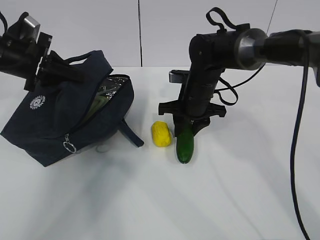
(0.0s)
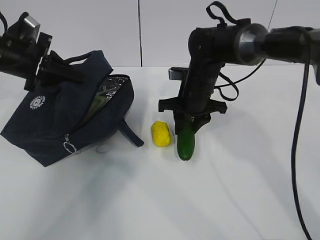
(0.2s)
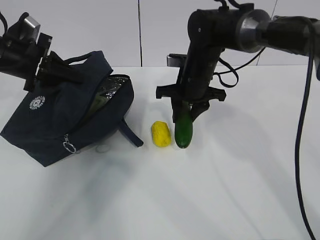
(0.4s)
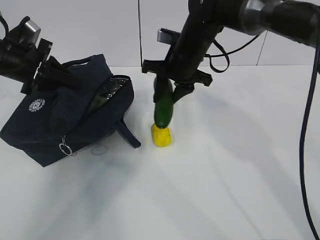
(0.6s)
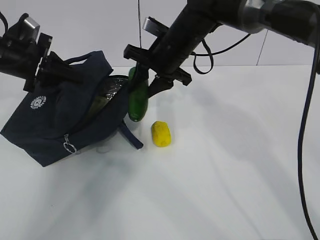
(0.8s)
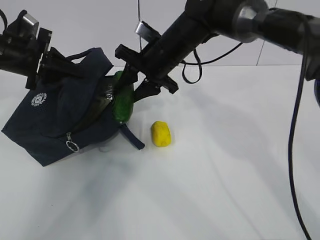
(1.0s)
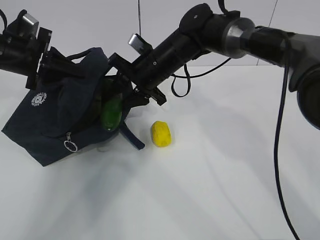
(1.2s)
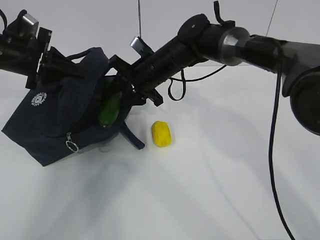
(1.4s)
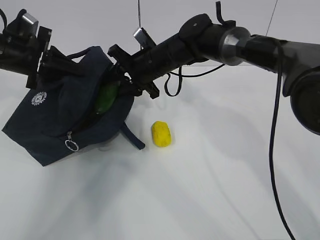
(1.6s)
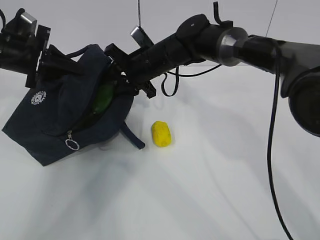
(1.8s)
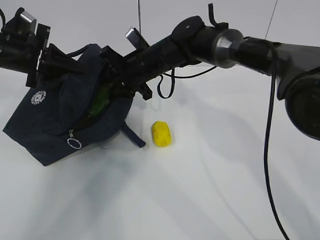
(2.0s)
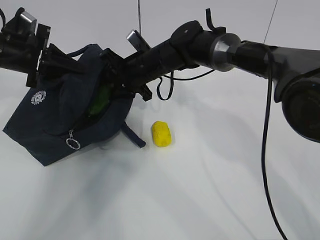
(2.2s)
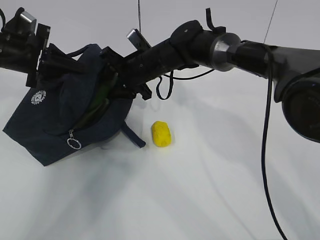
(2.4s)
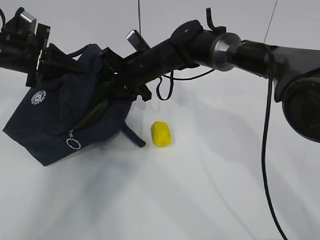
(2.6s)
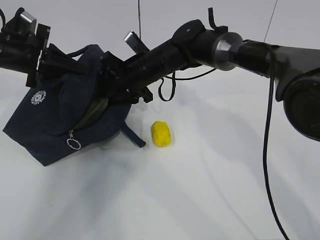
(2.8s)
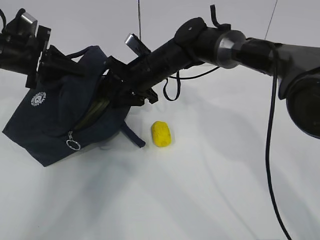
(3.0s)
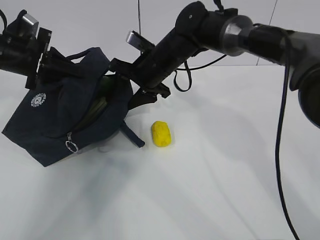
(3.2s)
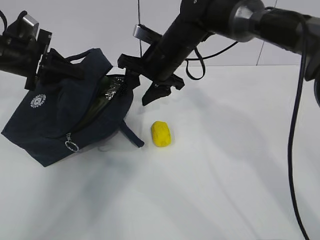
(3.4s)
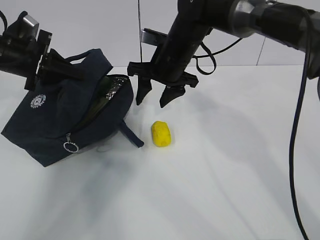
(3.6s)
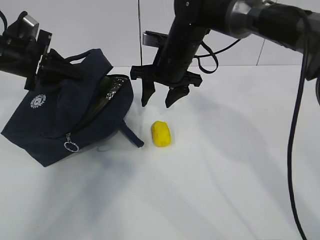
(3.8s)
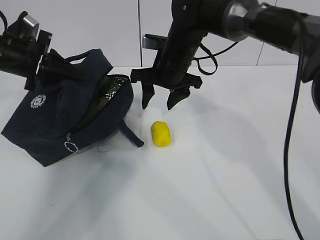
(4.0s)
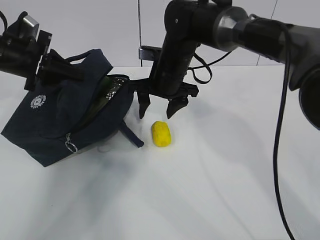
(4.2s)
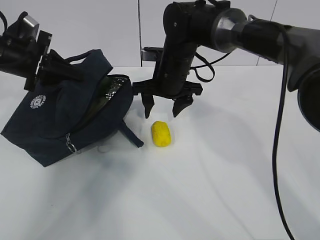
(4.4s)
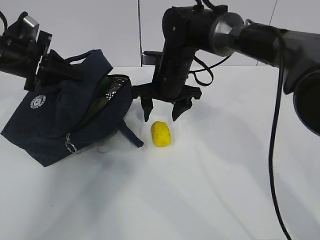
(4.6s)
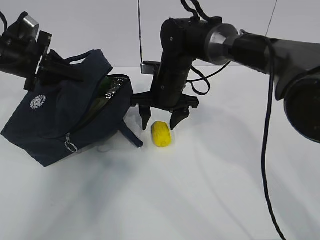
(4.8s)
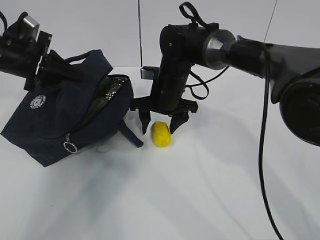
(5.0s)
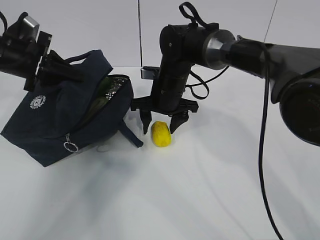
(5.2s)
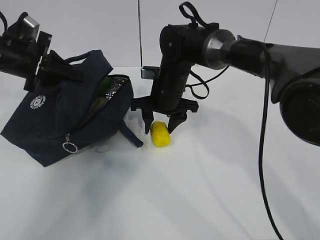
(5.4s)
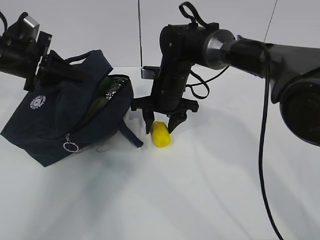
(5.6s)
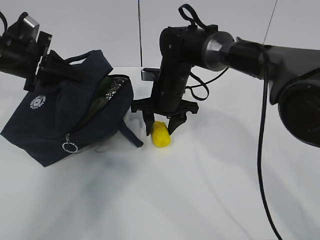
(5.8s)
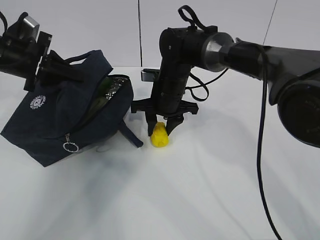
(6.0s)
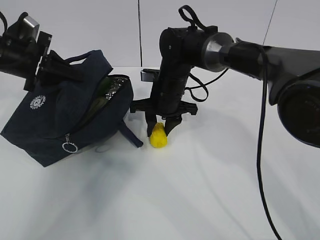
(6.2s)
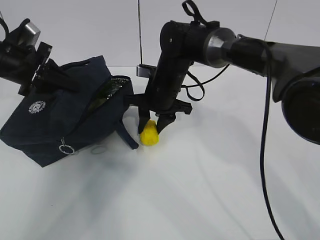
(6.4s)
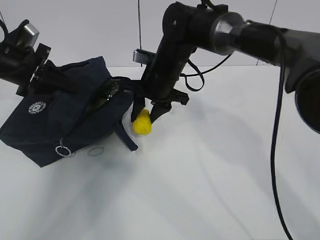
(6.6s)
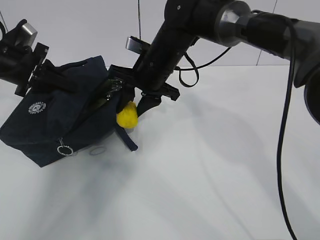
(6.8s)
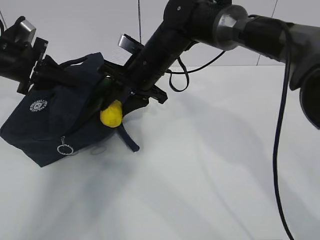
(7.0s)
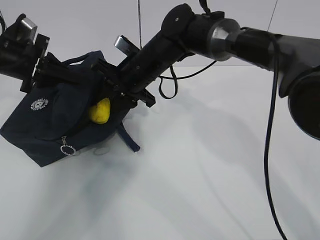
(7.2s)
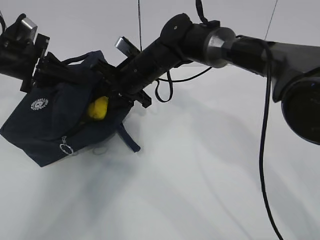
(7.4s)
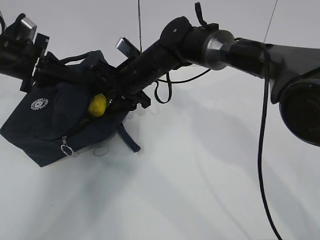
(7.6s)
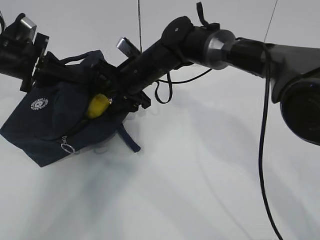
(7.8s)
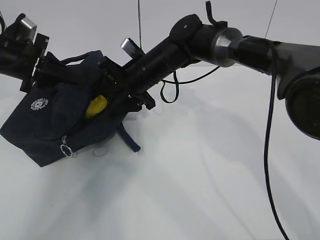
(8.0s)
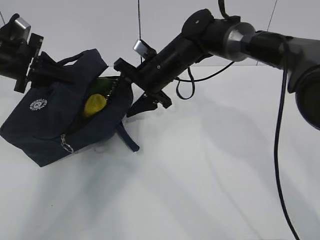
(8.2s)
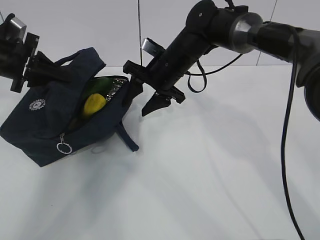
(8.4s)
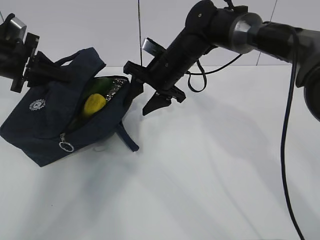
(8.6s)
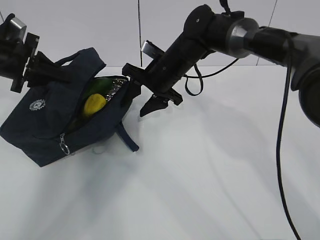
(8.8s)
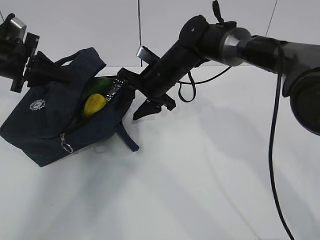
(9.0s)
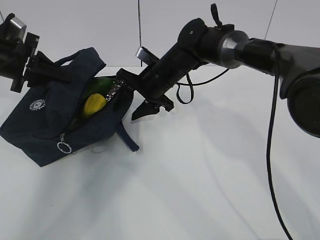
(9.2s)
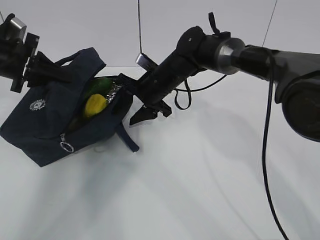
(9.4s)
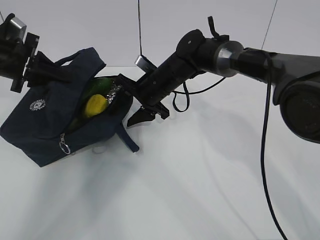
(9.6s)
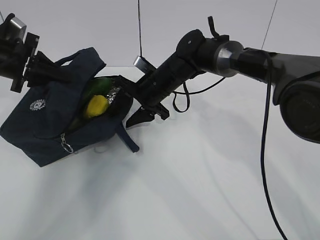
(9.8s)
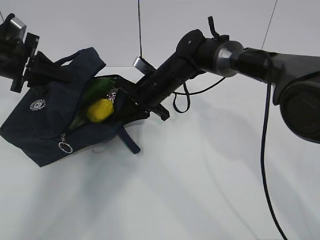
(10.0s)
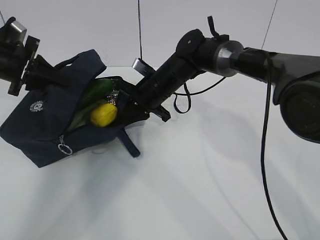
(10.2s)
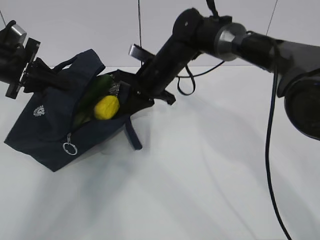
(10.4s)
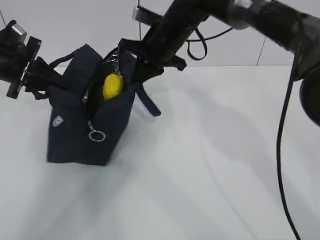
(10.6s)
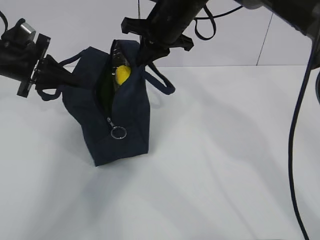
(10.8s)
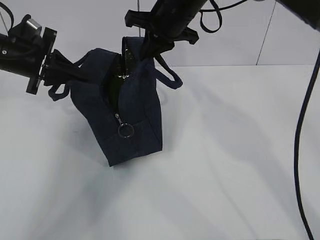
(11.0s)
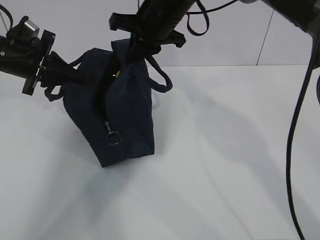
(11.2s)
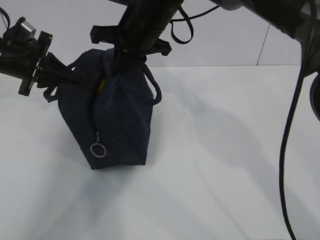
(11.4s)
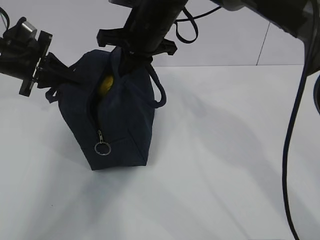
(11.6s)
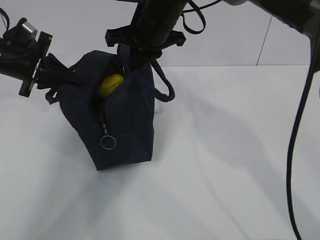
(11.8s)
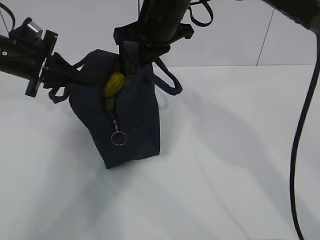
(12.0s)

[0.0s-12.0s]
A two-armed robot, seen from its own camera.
Step, 2.8s to 4.2s: Grab the lunch bag with your right hand.
Step, 4.4s to 8.8s: Stand the lunch bag upright with your right hand.
0.0s to 1.6s: The right gripper travels to the left and upward by roughly 10 cm.
1.6s to 3.0s: There are only small adjustments of the grippers.
4.4s to 6.0s: The right gripper closes.
6.0s to 7.6s: The right gripper is displaced to the left by approximately 5 cm.
7.6s to 9.0s: There are only small adjustments of the grippers.
9.0s to 10.4s: The right gripper closes up.
10.4s to 12.0s: The right gripper goes about 15 cm upward.

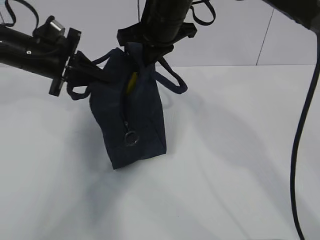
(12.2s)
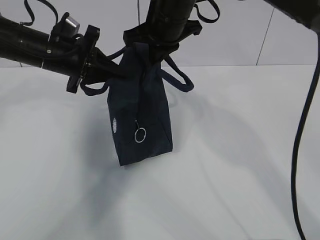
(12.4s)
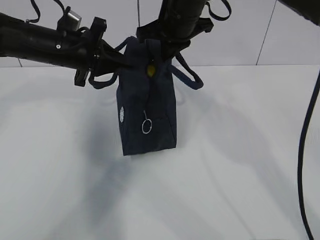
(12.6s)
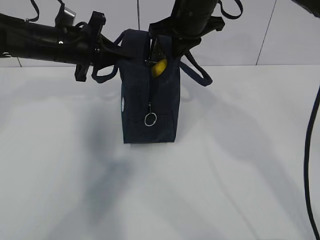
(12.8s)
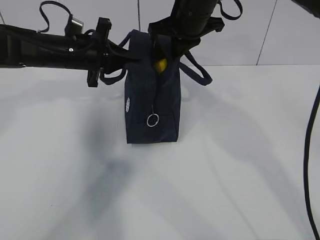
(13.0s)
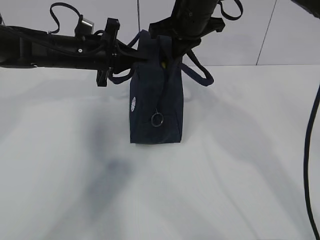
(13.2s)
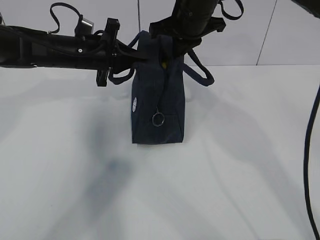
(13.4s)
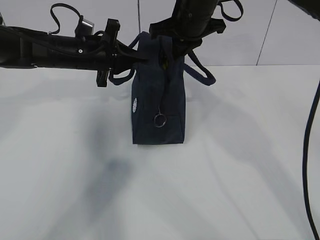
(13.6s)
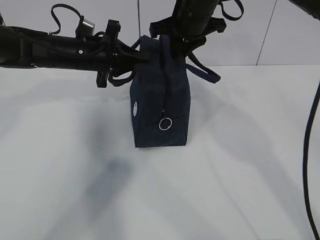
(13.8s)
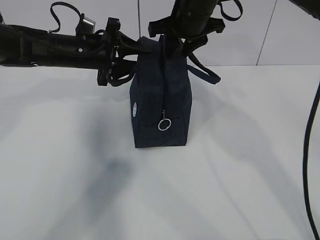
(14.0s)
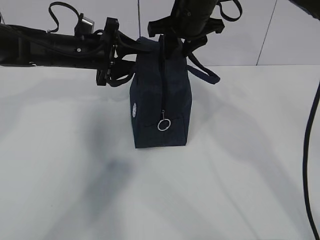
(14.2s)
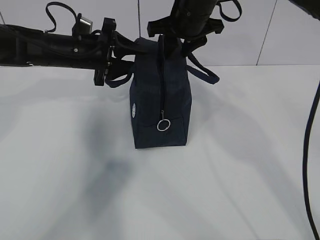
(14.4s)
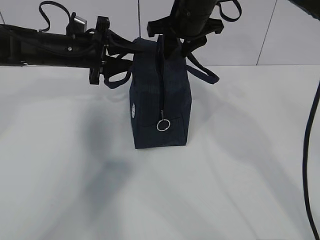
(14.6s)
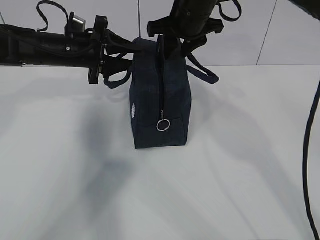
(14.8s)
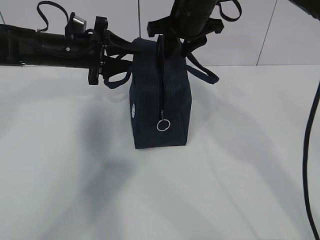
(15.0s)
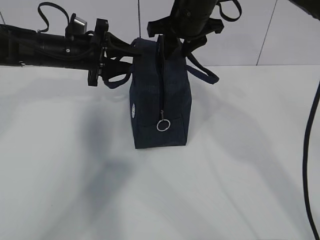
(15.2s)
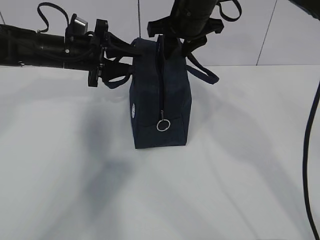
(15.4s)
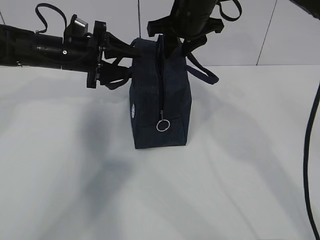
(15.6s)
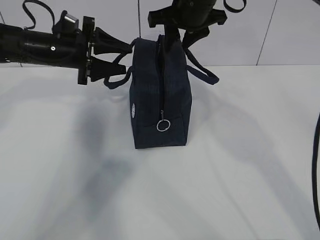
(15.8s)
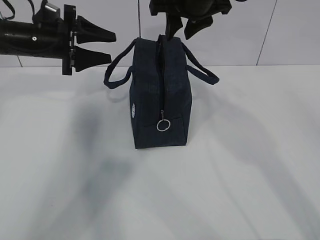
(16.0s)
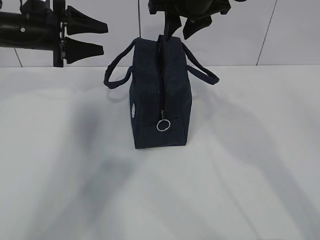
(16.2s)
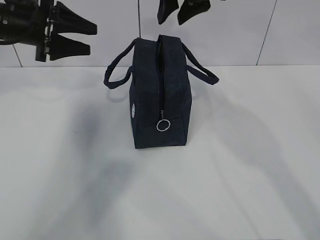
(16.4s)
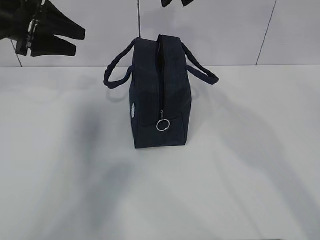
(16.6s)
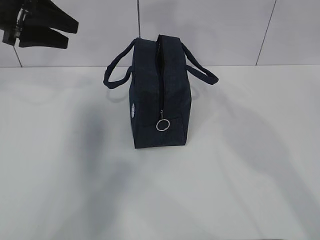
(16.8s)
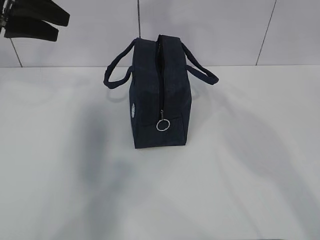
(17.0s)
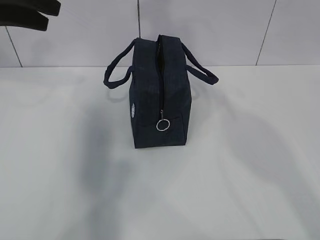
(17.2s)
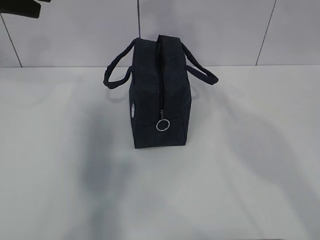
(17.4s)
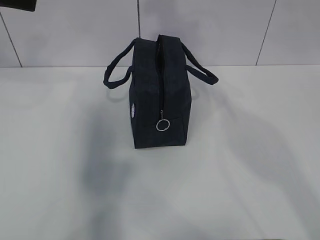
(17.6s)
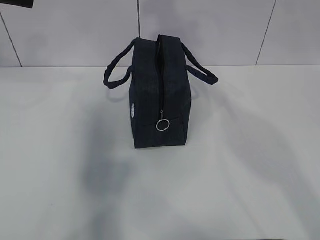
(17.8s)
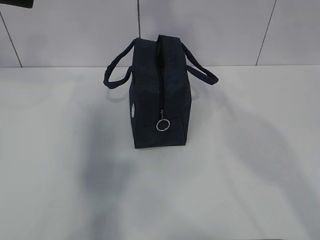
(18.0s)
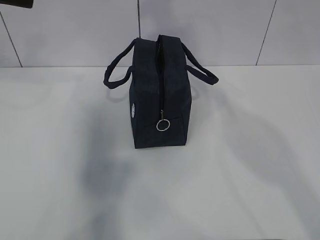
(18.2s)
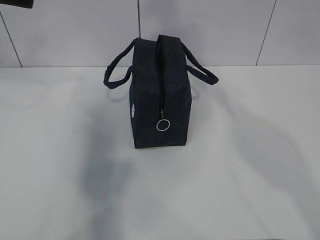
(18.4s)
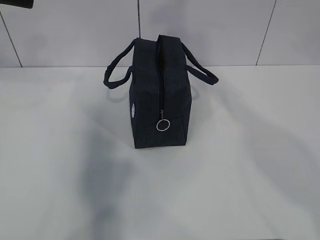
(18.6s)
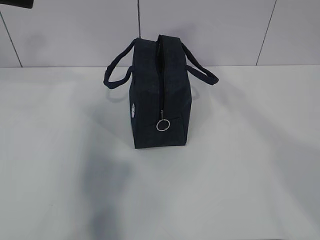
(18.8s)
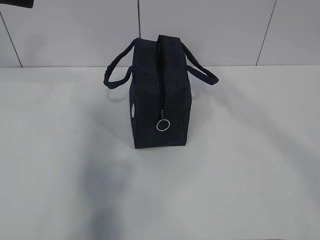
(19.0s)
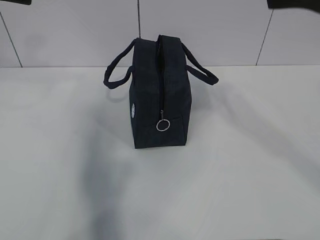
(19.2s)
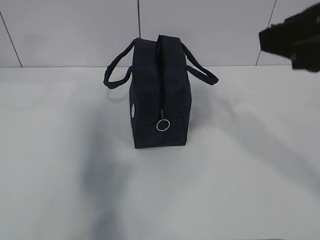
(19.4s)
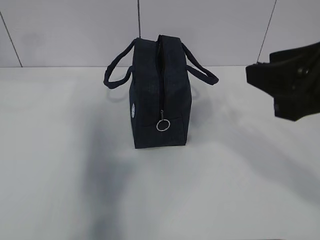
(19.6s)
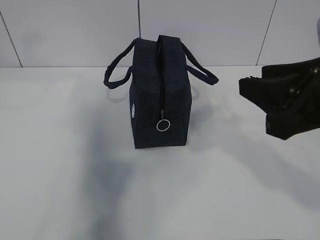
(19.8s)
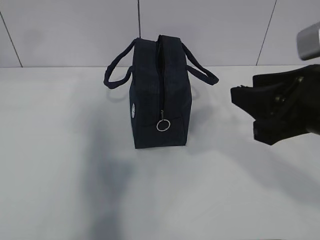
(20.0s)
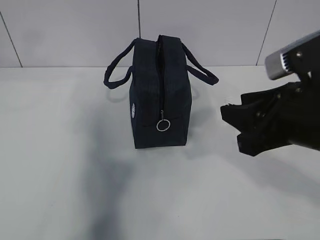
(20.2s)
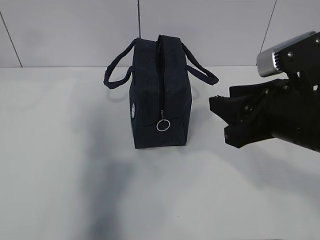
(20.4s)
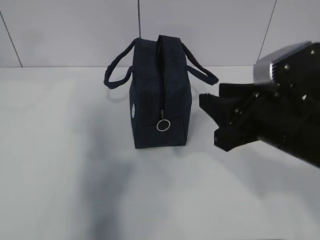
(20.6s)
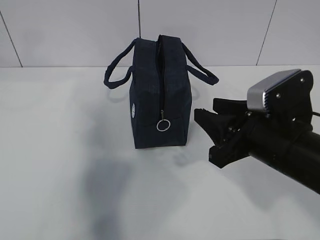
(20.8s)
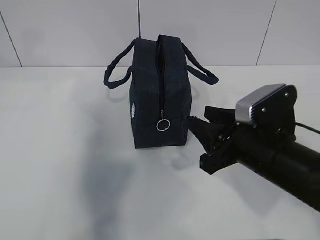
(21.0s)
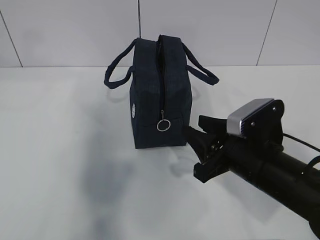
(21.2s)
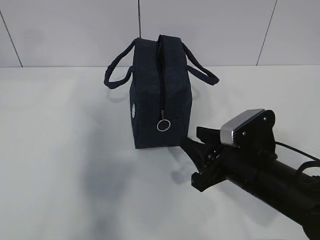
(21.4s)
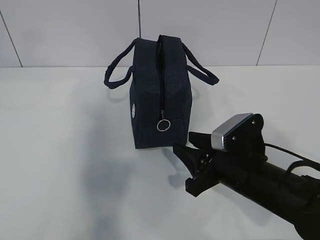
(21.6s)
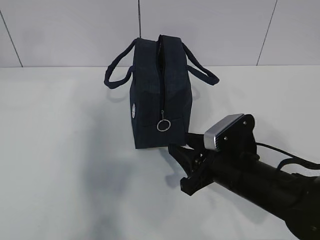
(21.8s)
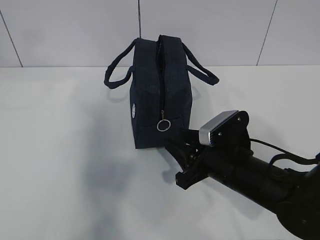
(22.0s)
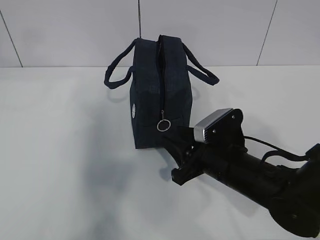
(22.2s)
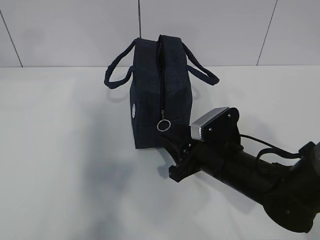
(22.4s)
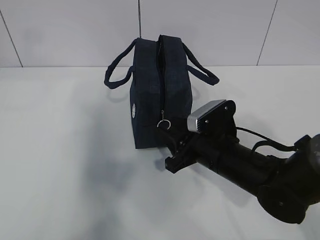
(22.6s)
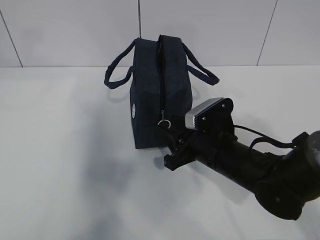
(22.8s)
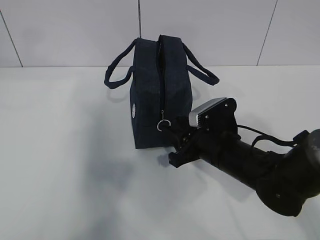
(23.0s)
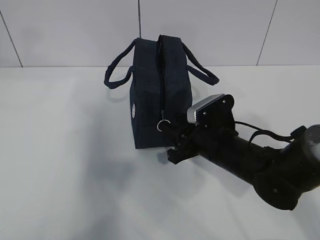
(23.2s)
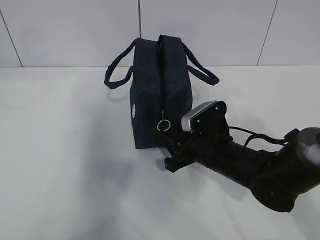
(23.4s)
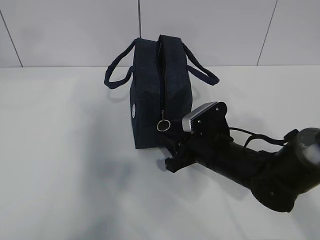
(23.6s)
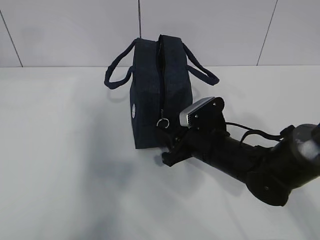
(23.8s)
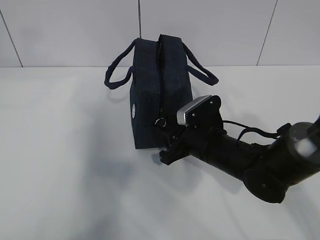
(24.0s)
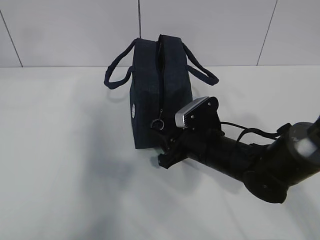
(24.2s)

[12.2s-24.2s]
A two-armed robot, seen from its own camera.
12.2s to 13.8s: The right gripper ends up roughly 5 cm from where it was; the left gripper shifts approximately 5 cm to the right.
13.8s to 15.2s: The left gripper opens up.
15.2s to 16.6s: The right gripper shifts roughly 10 cm upward; the left gripper goes about 10 cm to the left and upward.
16.6s to 18.2s: The two grippers go approximately 15 cm upward and backward.
18.2s to 19.8s: The right gripper moves downward, backward and to the right, about 25 cm.
19.8s to 21.2s: The right gripper moves downward, some 15 cm.
21.2s to 22.6s: The right gripper ends up some 5 cm from where it was.
22.6s to 24.2s: The grippers move only a little.
